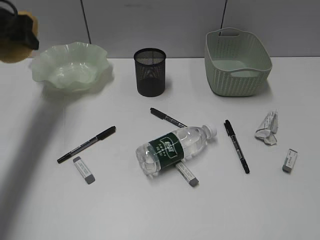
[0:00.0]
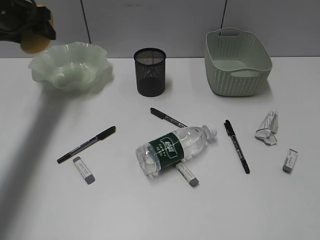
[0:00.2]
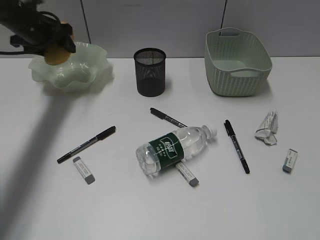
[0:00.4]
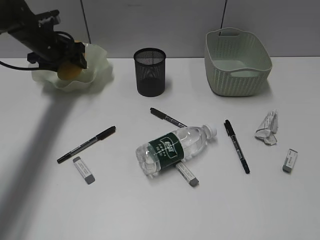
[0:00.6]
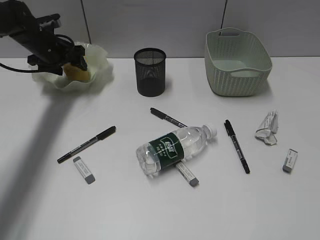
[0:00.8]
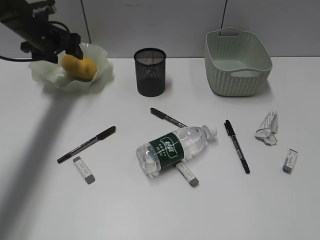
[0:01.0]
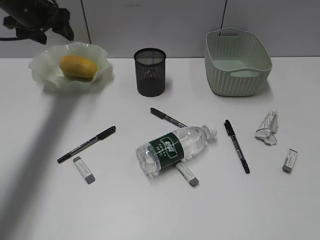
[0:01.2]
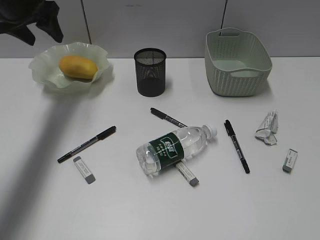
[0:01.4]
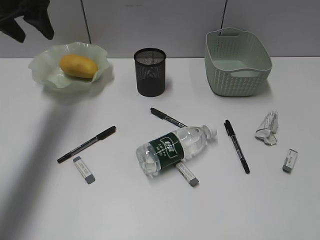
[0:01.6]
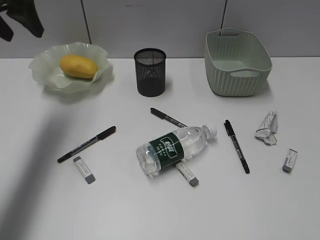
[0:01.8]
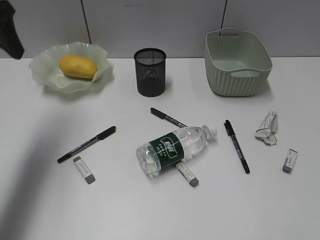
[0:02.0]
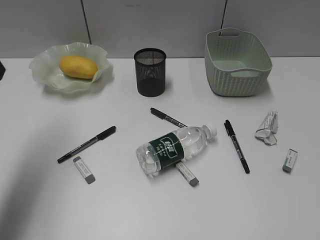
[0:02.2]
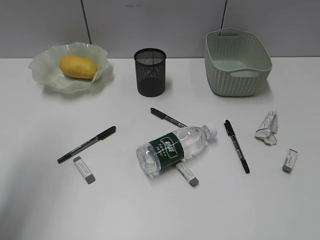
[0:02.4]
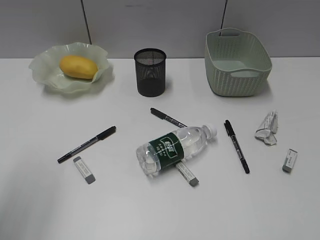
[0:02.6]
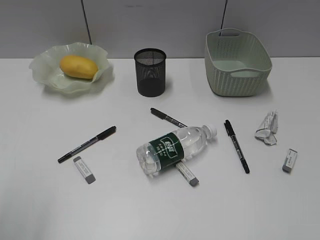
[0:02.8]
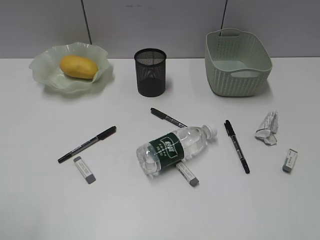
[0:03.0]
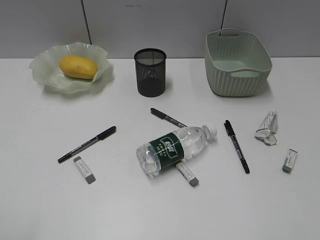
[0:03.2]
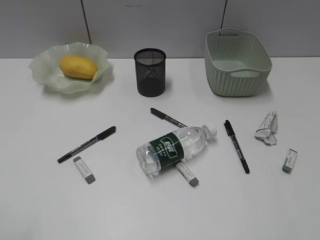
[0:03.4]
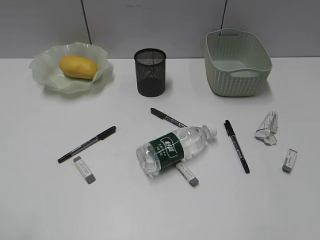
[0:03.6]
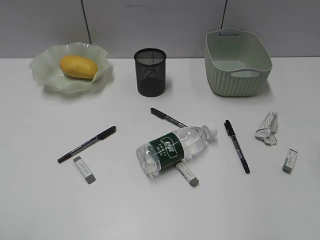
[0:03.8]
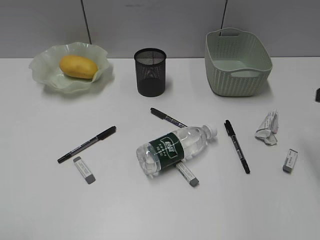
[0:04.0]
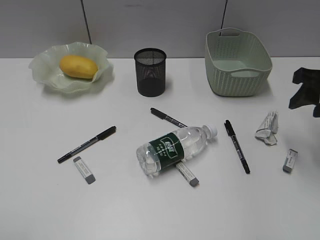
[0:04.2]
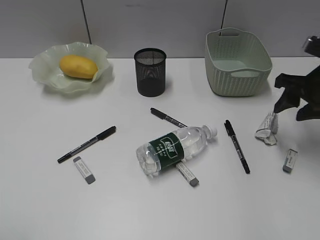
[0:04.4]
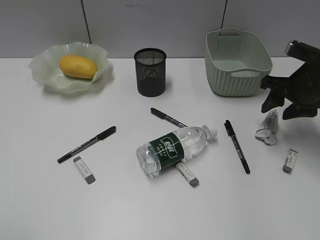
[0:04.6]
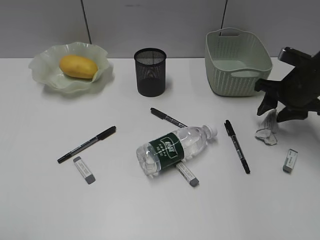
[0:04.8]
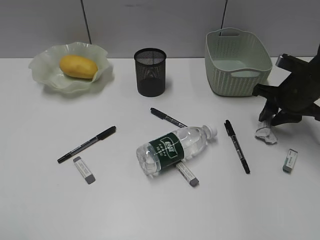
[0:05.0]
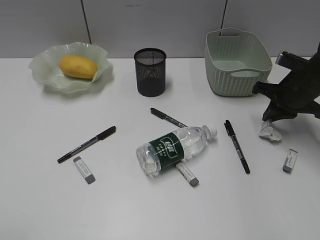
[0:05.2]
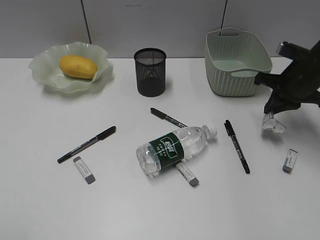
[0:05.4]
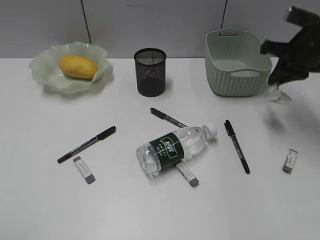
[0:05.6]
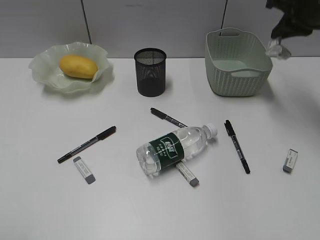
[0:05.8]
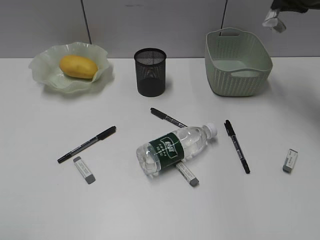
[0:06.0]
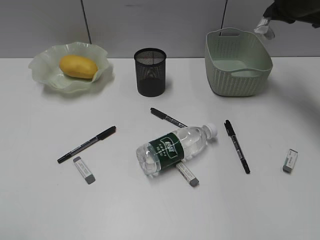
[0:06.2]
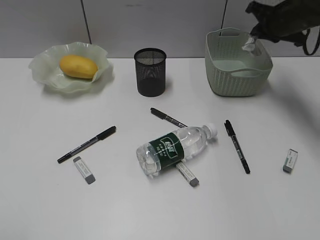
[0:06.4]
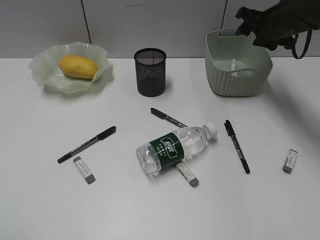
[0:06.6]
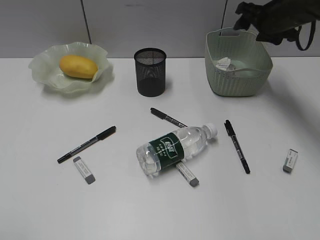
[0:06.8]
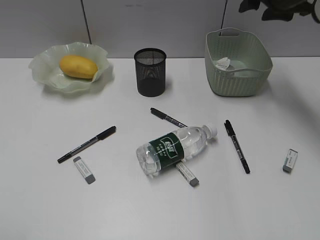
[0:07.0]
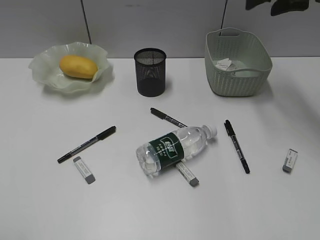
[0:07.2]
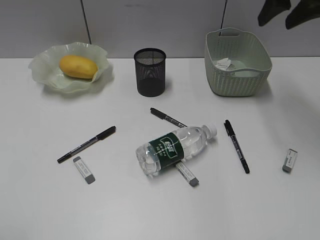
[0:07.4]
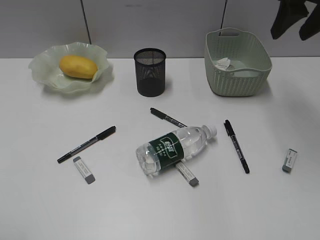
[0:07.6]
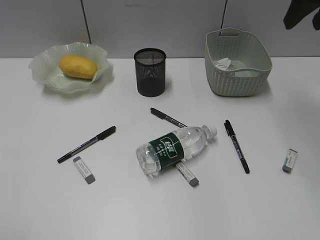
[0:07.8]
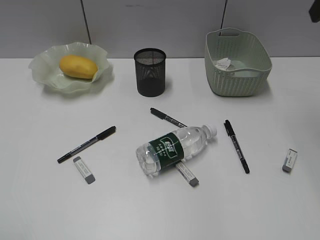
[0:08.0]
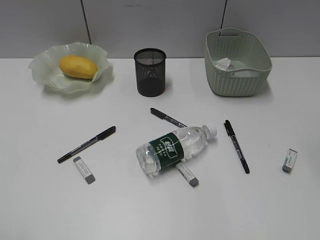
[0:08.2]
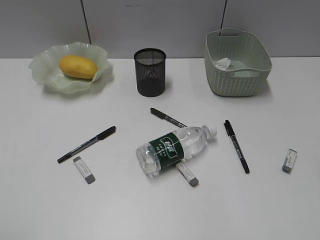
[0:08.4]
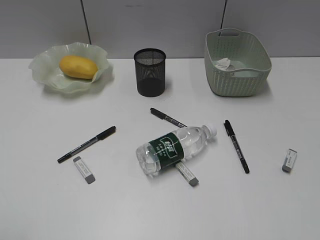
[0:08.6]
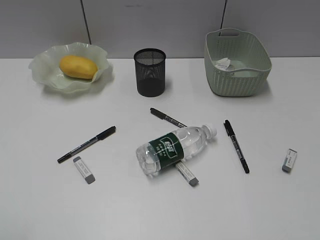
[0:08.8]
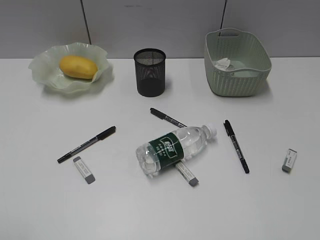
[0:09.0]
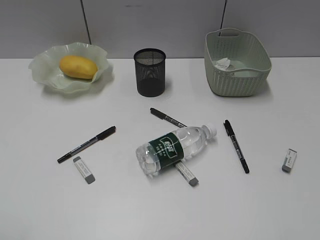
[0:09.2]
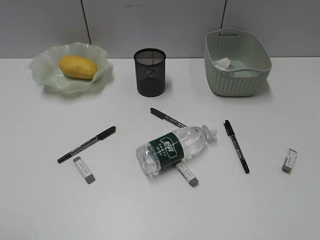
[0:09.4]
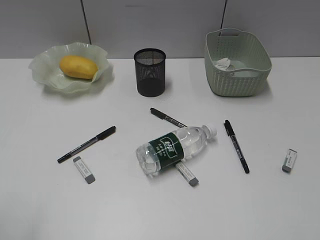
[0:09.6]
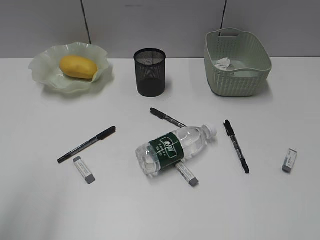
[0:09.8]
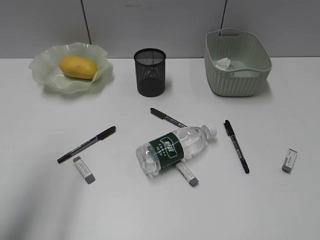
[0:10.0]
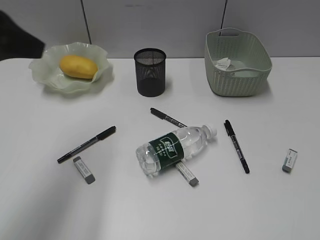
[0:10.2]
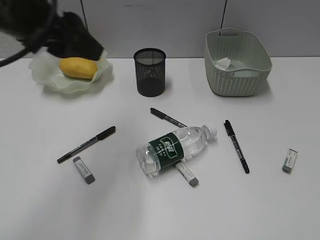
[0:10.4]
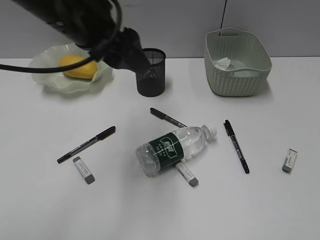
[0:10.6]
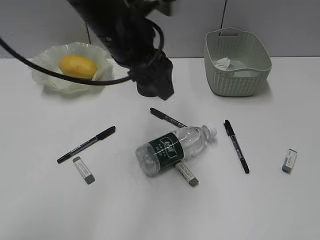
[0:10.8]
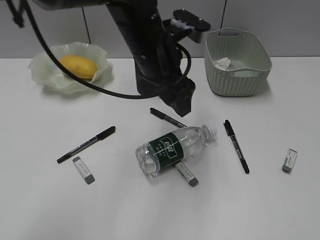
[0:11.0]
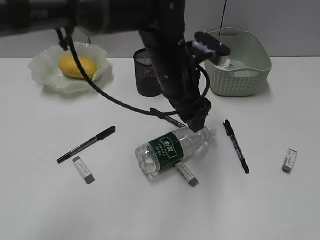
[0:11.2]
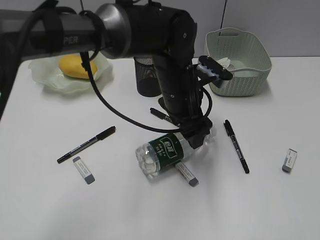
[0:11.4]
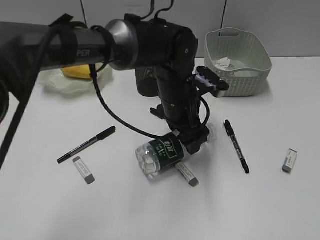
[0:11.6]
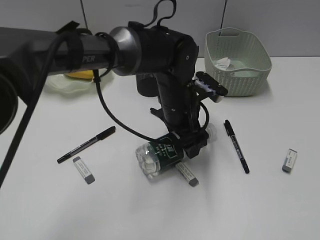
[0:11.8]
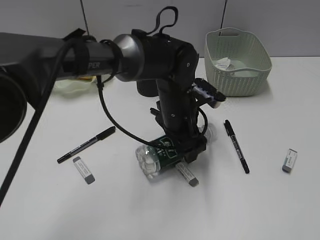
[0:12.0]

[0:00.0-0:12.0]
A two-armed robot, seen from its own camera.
Step, 0.0 to 1.0 s: Place the mango in the plate with left gripper.
Step, 1.2 to 5.2 s: Grasp the waste paper with right gripper.
Step, 5.4 to 6.6 s: Place the waste paper in the basket with right gripper.
0.0 to 1.6 s: The left gripper moves about 10 cm downward and comes back.
1.6 to 3.0 s: The left gripper moves backward, approximately 40 cm.
3.0 to 4.4 s: The right gripper travels forward by about 30 cm.
4.4 to 6.0 s: The right gripper moves forward and upward, roughly 15 cm, and closes up.
6.0 to 7.6 s: The right gripper goes roughly 5 cm backward, reaches some 10 cm downward, then returns, and opens its fingers.
7.6 to 9.0 s: The right gripper is displaced backward by some 35 cm.
9.0 to 10.4 s: The right gripper travels downward by approximately 5 cm; the left gripper is displaced forward and to the right by approximately 30 cm.
10.4 to 12.0 s: The left gripper goes about 30 cm to the right and downward.

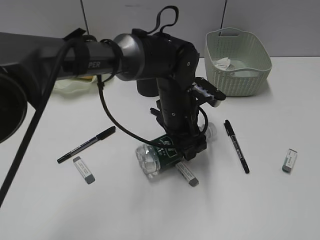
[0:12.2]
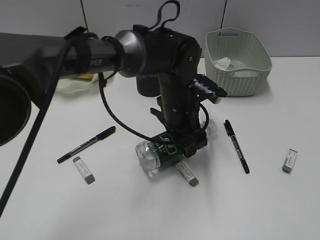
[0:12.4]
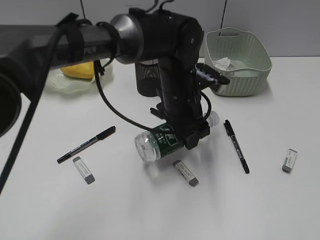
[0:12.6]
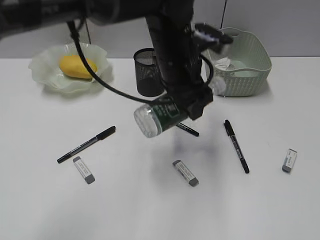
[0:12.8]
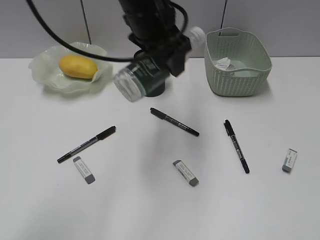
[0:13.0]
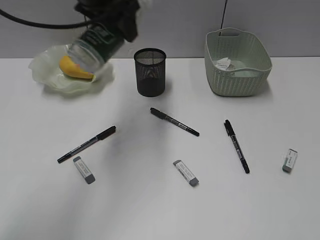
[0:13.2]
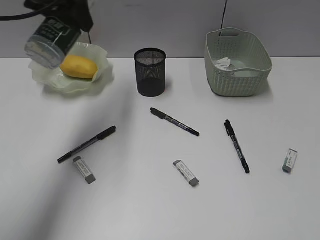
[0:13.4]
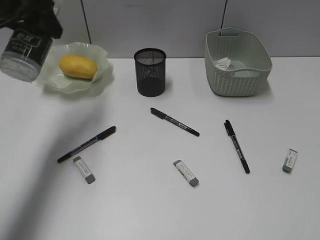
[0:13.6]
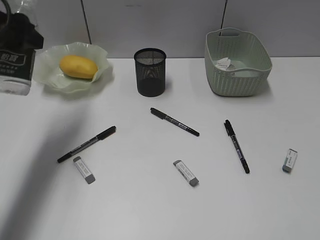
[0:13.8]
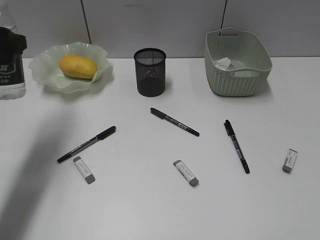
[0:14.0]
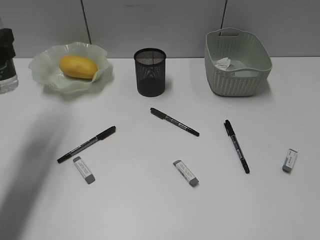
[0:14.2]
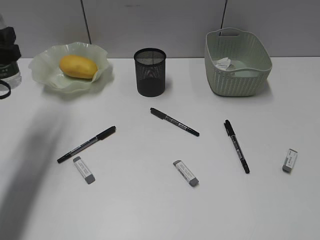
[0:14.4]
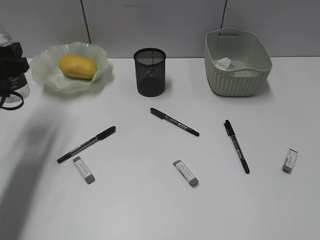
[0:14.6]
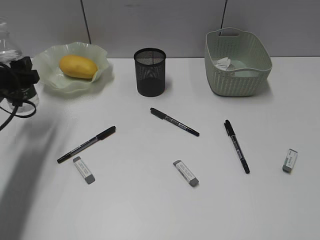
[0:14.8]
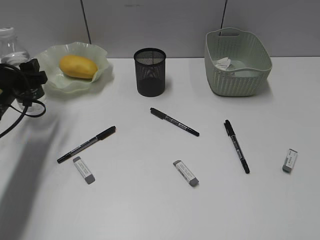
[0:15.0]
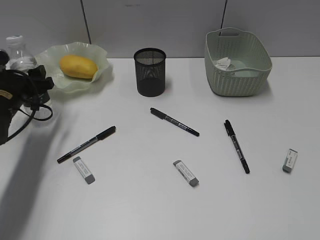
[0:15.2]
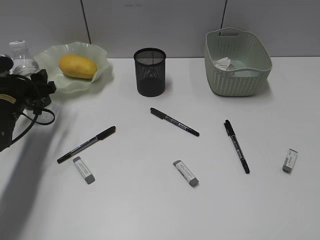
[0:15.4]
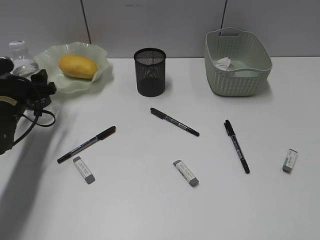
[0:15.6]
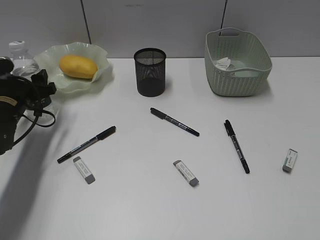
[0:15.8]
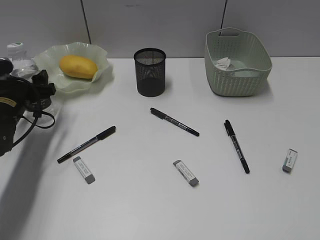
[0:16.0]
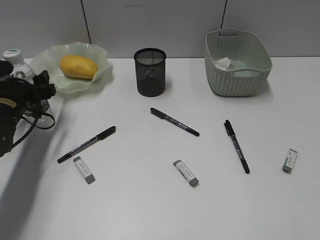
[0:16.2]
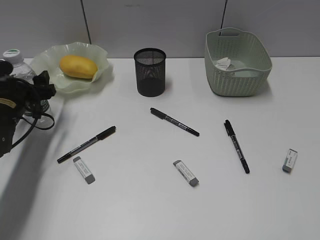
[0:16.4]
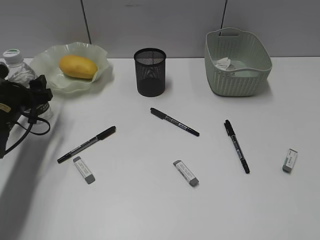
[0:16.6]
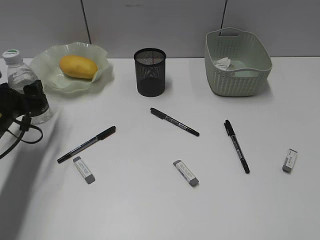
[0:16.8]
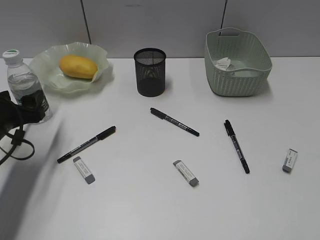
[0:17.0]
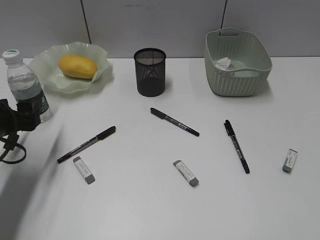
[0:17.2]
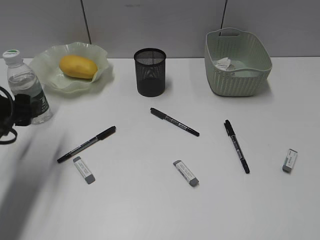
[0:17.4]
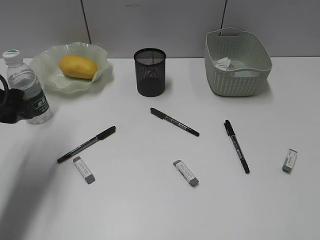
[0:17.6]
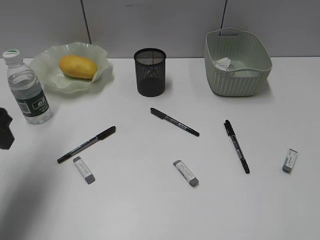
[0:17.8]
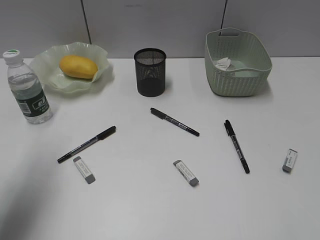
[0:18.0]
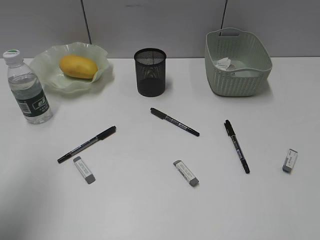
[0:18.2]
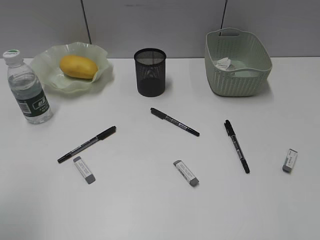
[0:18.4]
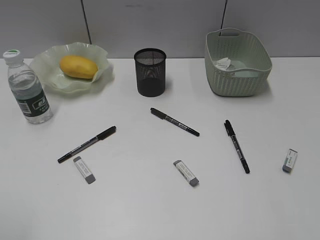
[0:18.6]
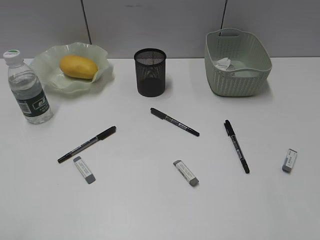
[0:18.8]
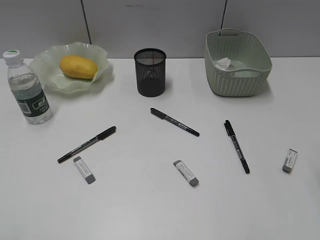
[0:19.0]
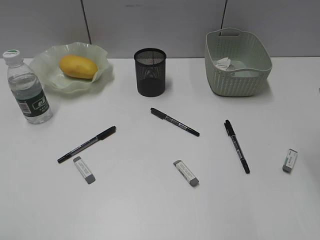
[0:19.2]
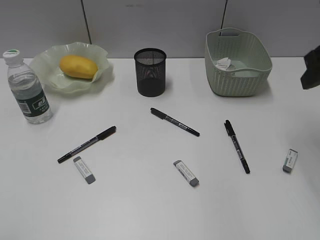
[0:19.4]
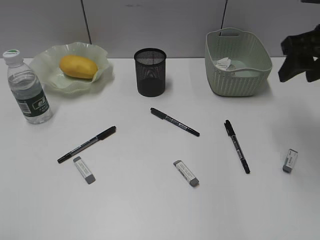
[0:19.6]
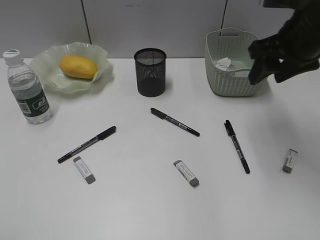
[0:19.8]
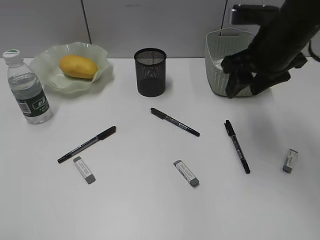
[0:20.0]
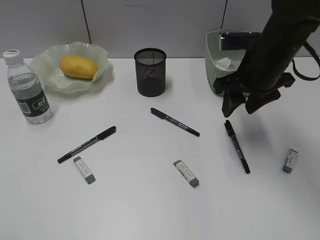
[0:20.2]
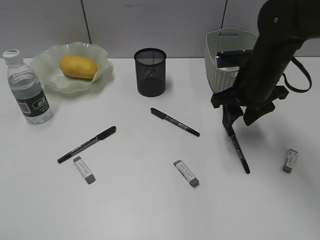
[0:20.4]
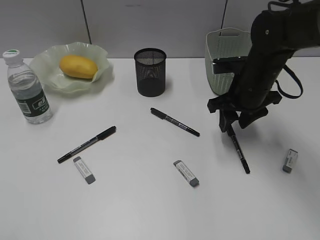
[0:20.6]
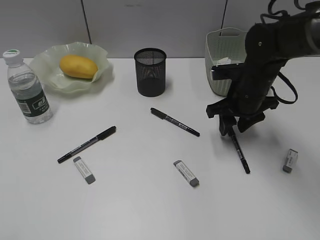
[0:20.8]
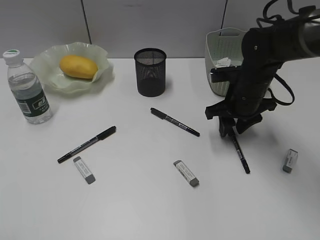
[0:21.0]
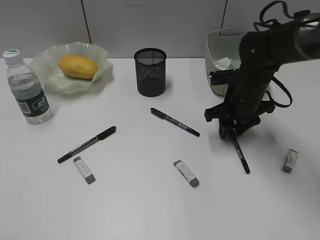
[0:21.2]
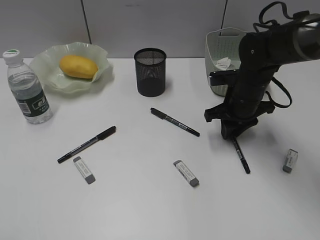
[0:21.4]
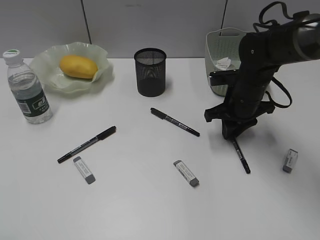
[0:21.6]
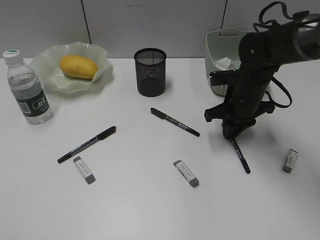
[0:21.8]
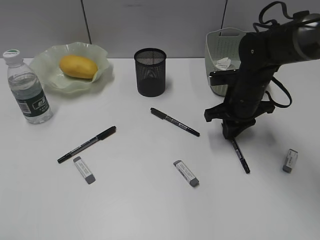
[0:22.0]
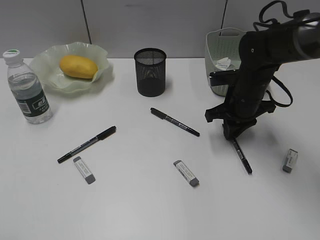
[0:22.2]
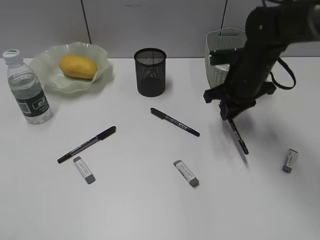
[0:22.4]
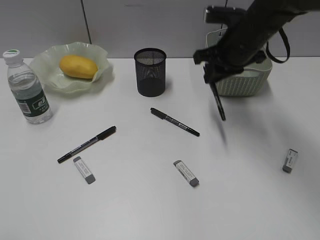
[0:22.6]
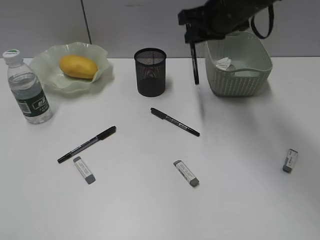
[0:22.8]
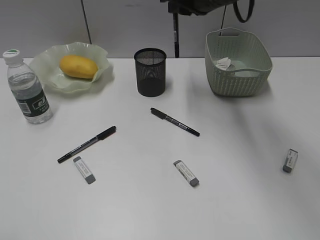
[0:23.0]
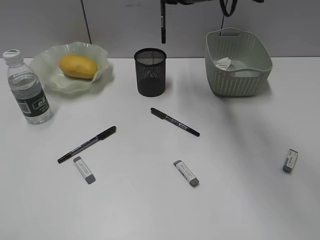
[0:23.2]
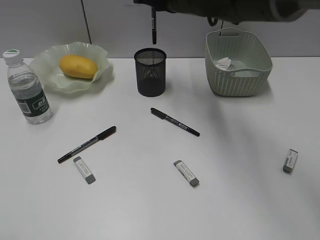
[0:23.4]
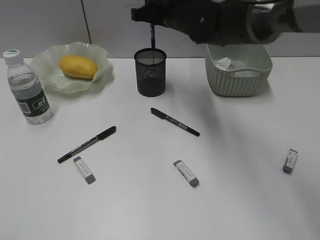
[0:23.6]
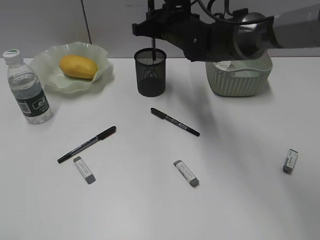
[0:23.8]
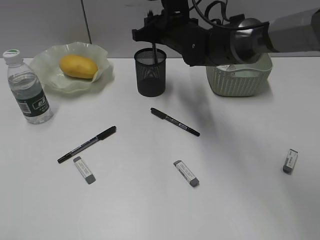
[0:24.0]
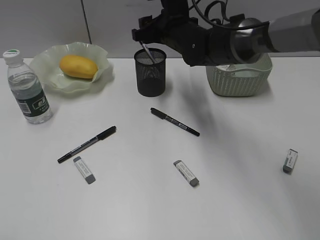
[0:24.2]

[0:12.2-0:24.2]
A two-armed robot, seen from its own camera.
Step, 12.4 to 17.0 s: Stand the bottle with left gripper.
Step, 17.2 to 22.0 s: Grasp the black pen with right gripper.
12.2 to 13.8 s: The left gripper shifts roughly 35 cm to the left and upward.
13.8 to 15.2 s: The left gripper travels downward by roughly 20 cm.
15.2 to 16.6 s: The grippers stay close to where they were, moving slightly.
16.6 to 18.2 s: The left gripper goes some 25 cm upward and backward.
18.2 to 19.8 s: The left gripper travels backward by about 20 cm, while the right gripper heads forward, covering about 25 cm.
19.8 to 21.2 s: The right gripper moves downward, approximately 15 cm.
21.2 to 22.6 s: The right gripper heads upward, covering about 10 cm, and closes its fingers.
22.6 to 24.2 s: The right gripper is displaced to the left and forward by about 10 cm, and opens up.
